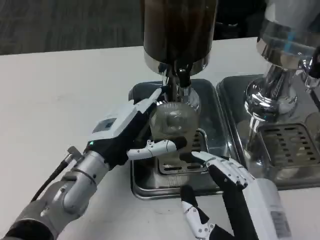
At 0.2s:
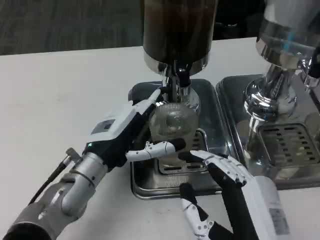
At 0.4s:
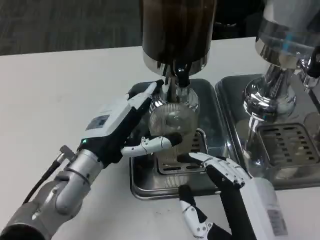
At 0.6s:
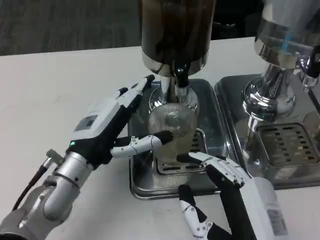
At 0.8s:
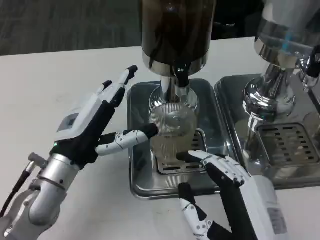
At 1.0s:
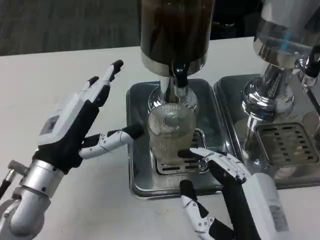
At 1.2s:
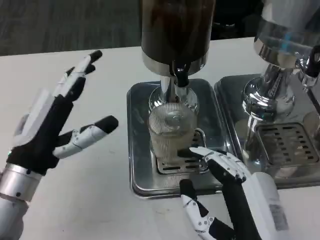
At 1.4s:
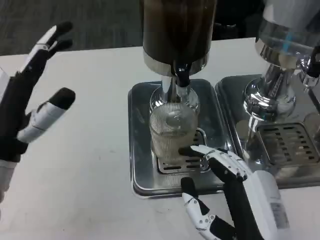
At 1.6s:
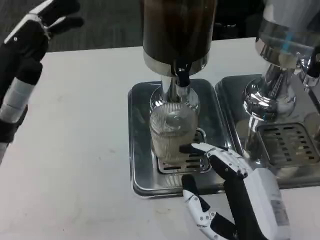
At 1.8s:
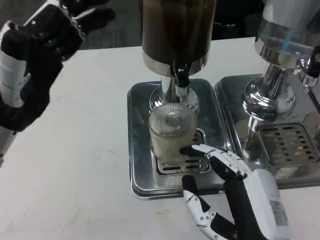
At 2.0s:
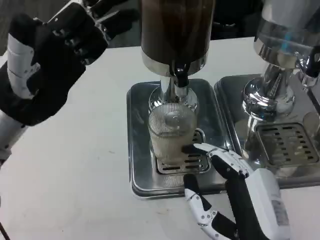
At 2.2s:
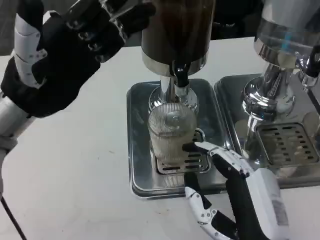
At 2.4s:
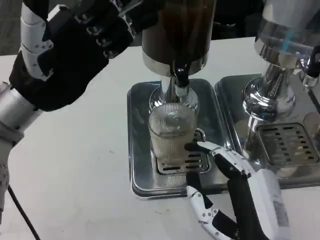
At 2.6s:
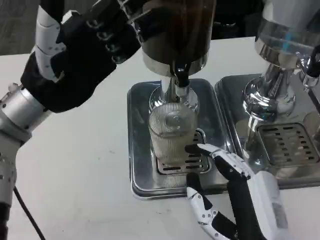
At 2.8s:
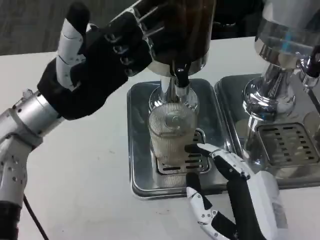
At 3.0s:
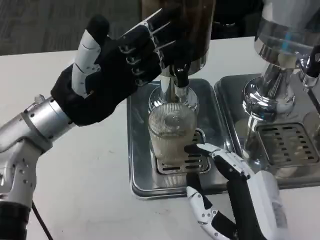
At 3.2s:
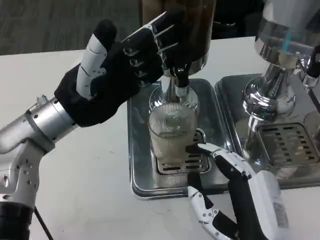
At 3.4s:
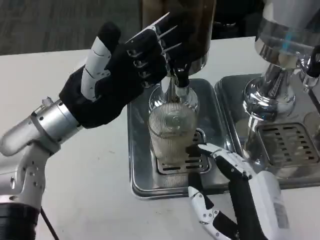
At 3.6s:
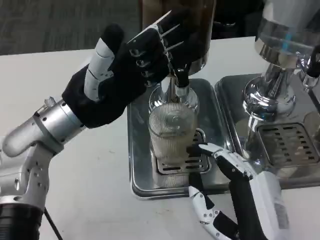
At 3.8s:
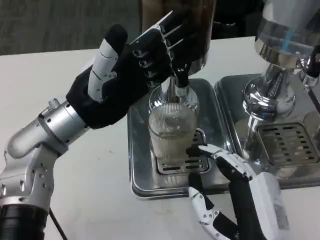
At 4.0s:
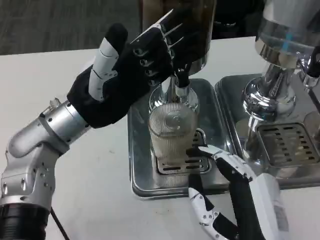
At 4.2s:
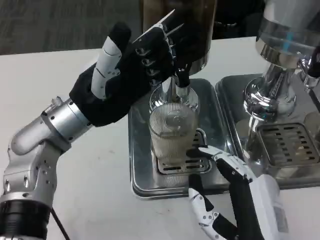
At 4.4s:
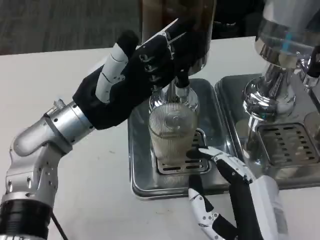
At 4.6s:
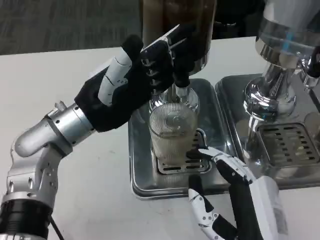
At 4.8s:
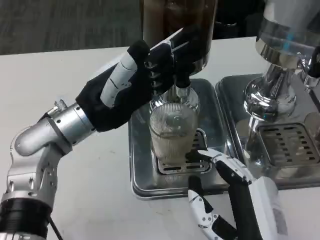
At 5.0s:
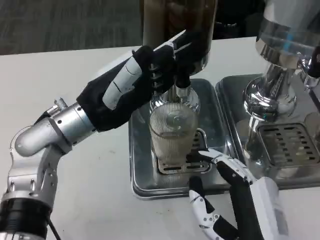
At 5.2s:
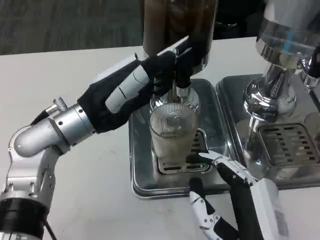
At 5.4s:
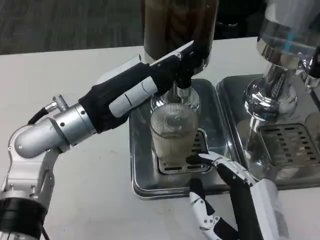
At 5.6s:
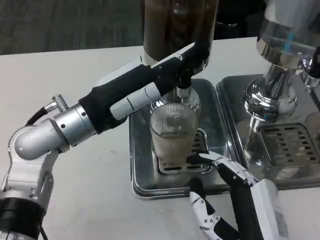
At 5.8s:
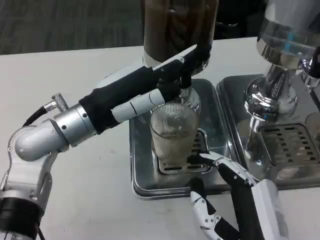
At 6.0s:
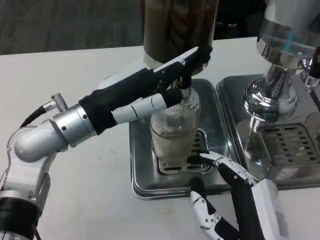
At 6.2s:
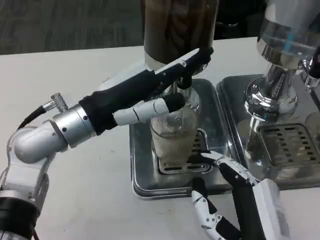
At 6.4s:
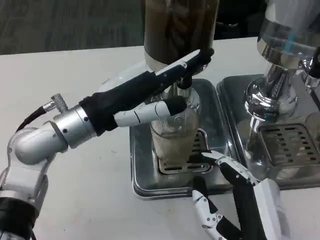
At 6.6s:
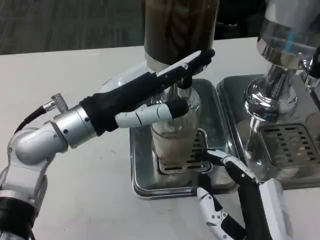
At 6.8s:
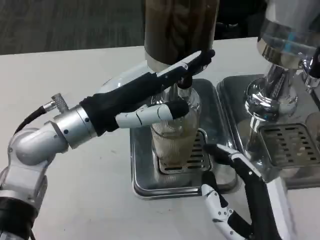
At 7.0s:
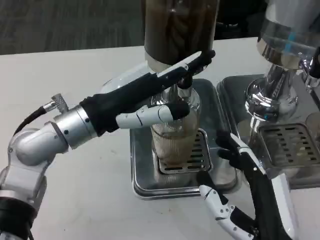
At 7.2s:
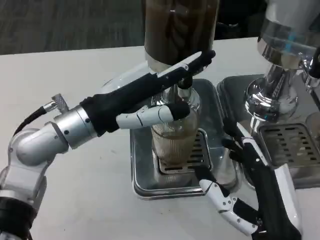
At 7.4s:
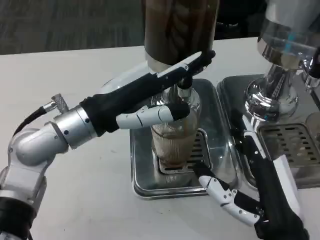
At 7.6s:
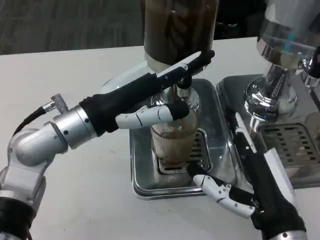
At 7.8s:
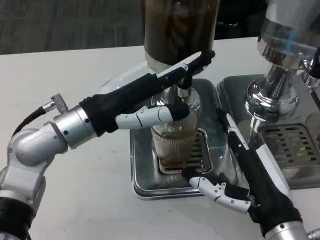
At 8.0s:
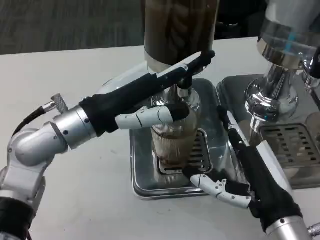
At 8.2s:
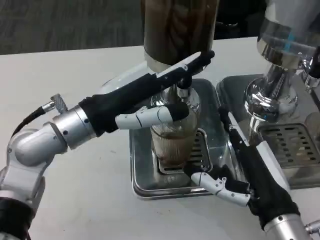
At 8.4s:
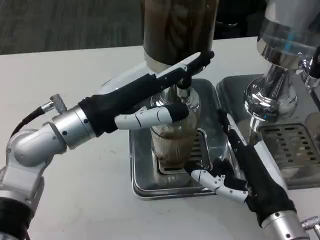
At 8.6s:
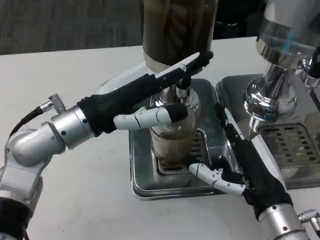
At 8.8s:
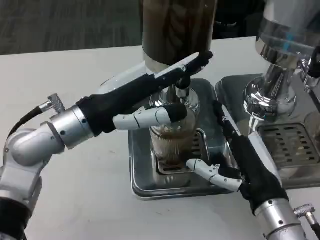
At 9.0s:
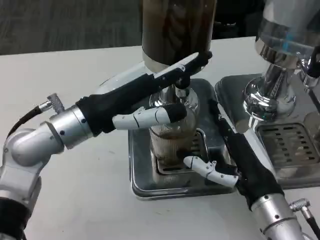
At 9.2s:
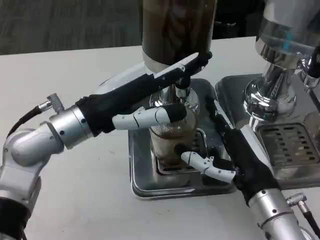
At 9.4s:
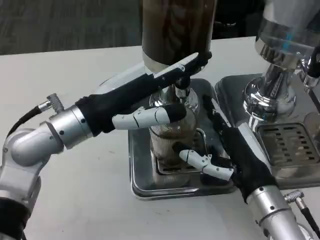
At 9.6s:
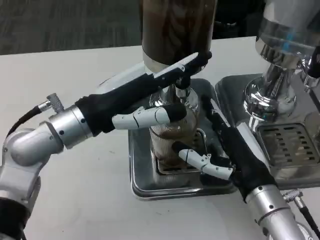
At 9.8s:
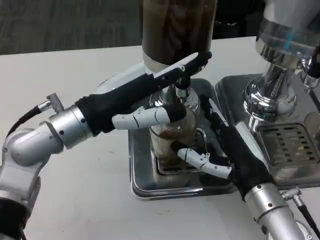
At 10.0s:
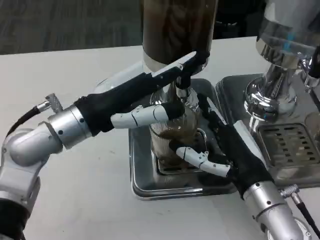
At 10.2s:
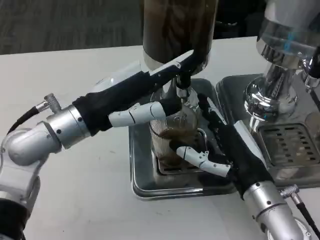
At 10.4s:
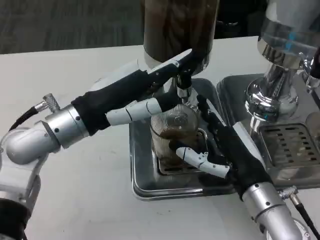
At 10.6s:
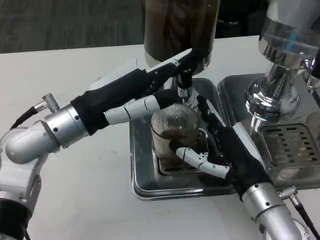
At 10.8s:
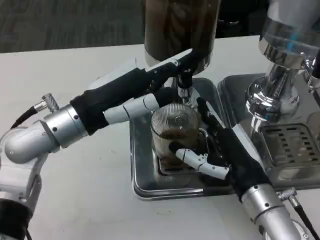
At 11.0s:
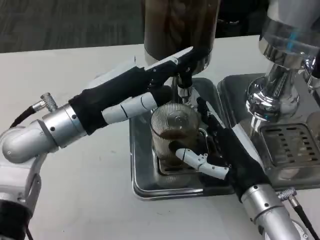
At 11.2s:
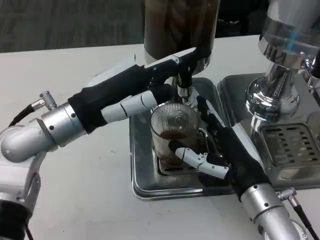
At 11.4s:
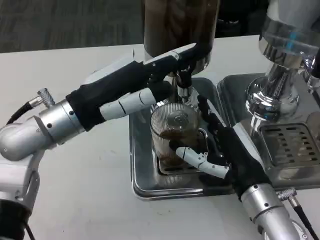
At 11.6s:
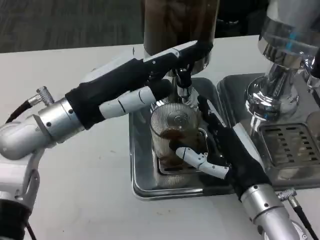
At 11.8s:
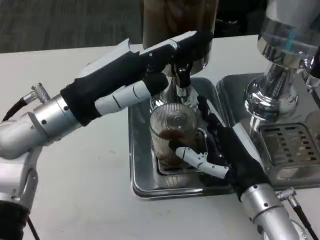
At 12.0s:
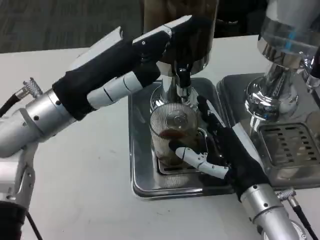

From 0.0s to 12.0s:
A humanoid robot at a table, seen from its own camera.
Task of the whole recording: Grasp the cup under the faucet to collect the drink, then remove the cup.
From 0.0s to 1.6s: The left hand goes about 15 cm upward and to the left.
From 1.6s to 3.0s: The left hand travels forward by roughly 5 cm.
From 6.0s to 7.6s: The right hand changes place by roughly 5 cm.
From 7.6s to 9.0s: The right hand travels forward by some 5 cm.

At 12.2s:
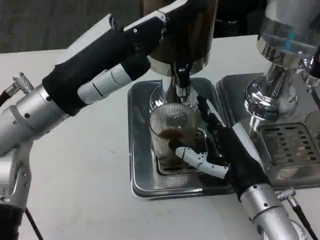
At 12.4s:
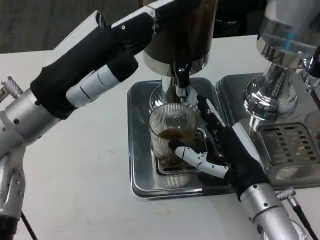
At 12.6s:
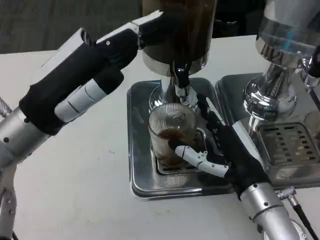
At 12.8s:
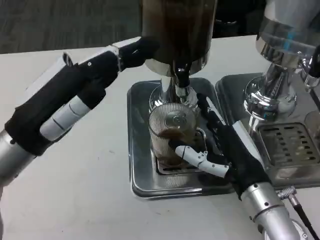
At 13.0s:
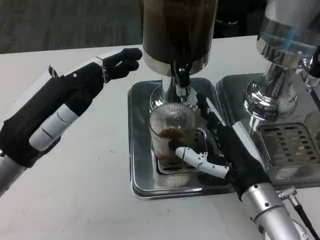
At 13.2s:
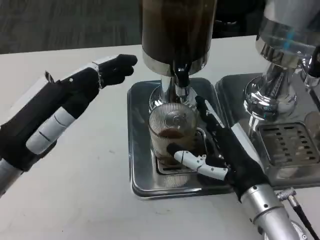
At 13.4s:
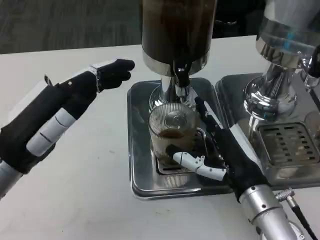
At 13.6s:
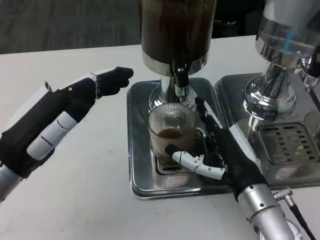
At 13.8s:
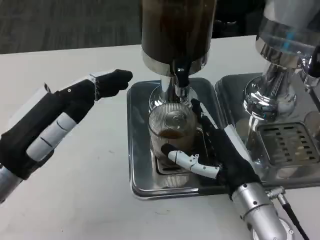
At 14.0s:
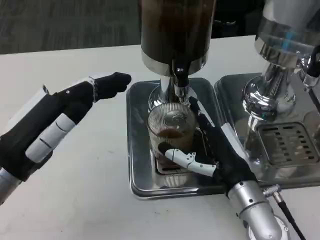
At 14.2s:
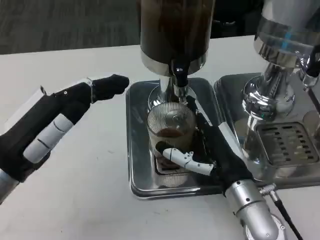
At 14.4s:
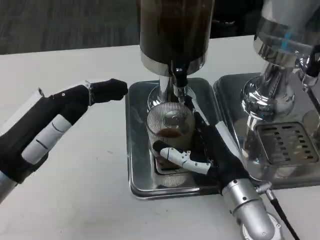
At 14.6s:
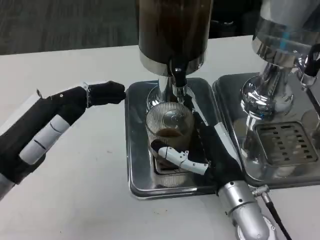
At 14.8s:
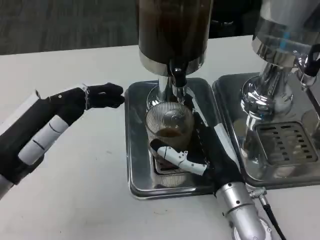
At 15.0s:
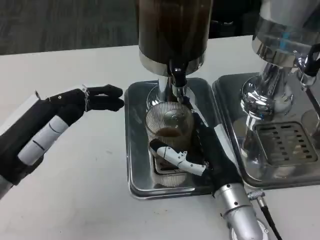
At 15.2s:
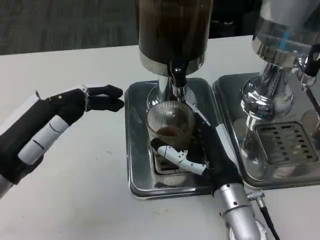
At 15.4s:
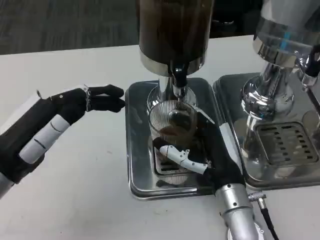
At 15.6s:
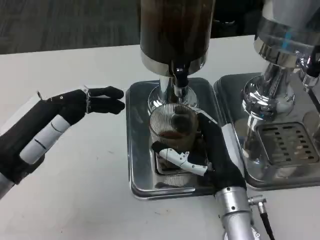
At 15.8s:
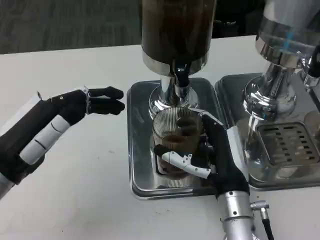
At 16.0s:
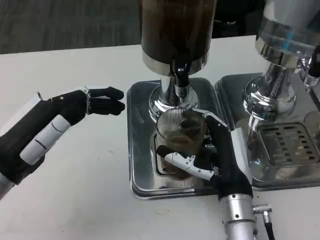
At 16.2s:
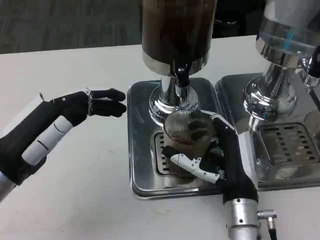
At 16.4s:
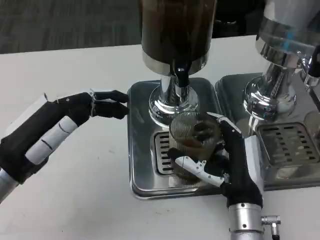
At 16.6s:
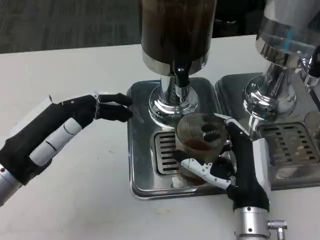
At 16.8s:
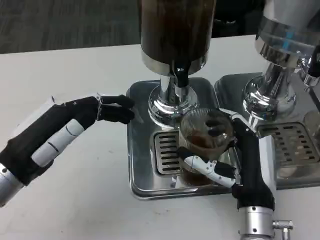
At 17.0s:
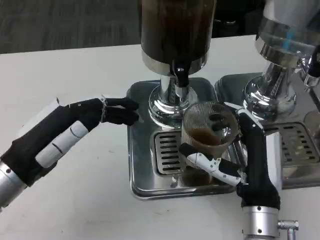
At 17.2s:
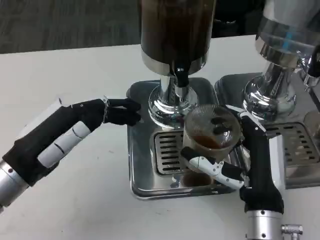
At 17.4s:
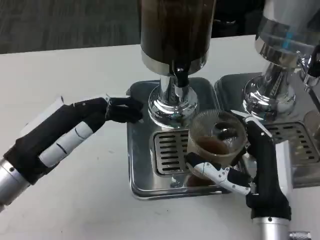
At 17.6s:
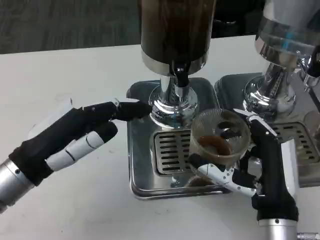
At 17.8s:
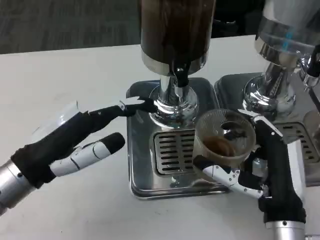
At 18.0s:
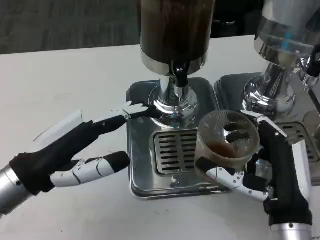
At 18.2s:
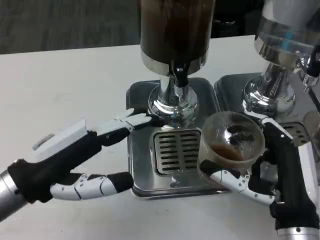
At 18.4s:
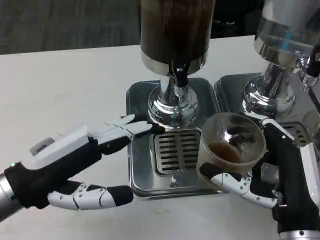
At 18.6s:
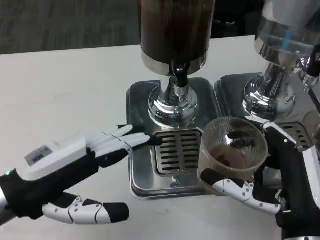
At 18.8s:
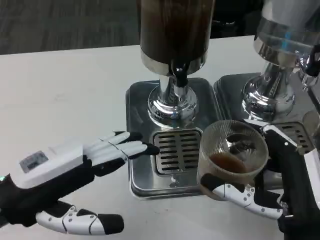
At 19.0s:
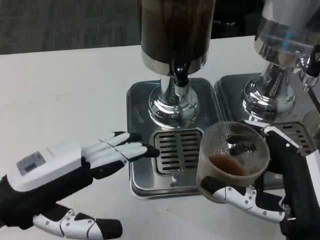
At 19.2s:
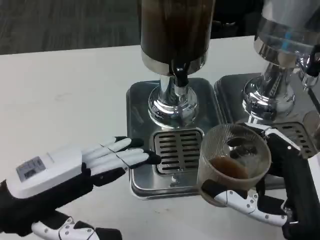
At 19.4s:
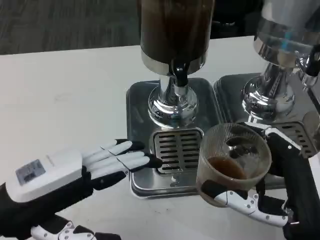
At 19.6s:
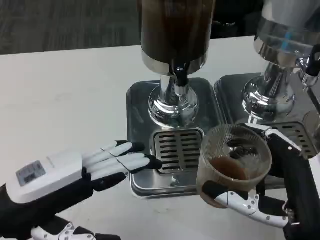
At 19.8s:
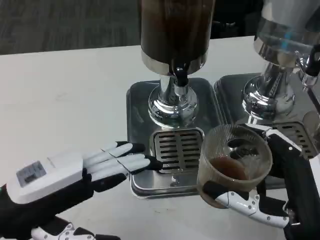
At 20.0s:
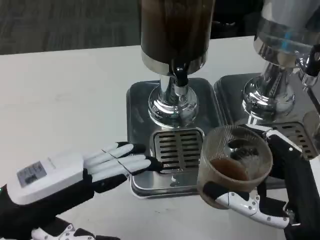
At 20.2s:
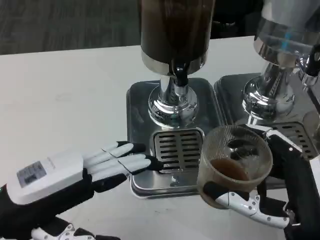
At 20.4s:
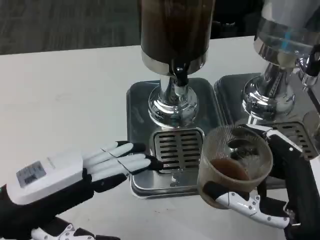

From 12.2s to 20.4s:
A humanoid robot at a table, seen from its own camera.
Task of the whole recording: Grasp the cup under the faucet to collect the drink, then remove the cup.
From 12.2s to 13.8s: The left hand moves backward, downward and to the left, about 10 cm.
From 13.8s to 15.4s: The hands stay close to where they were, moving slightly.
From 15.4s to 17.2s: The right hand shifts by some 5 cm.
From 17.2s to 18.8s: The right hand travels backward by about 5 cm.
From 18.8s to 20.4s: The hands stay close to where they were, moving slightly.

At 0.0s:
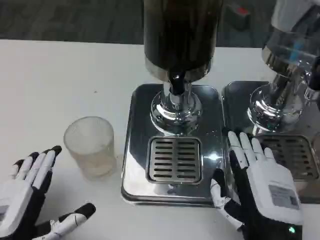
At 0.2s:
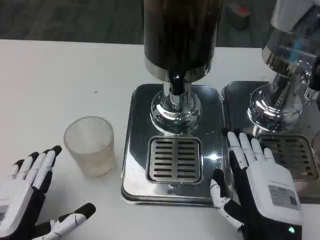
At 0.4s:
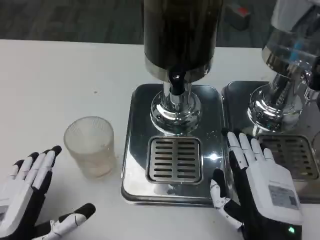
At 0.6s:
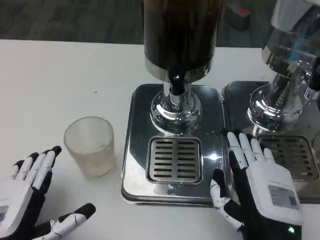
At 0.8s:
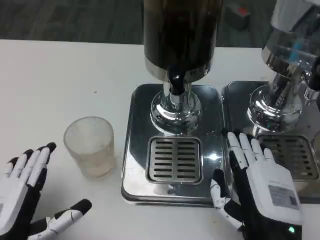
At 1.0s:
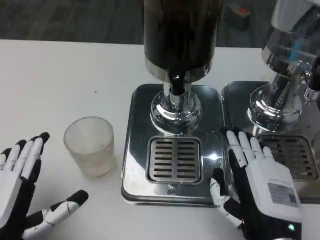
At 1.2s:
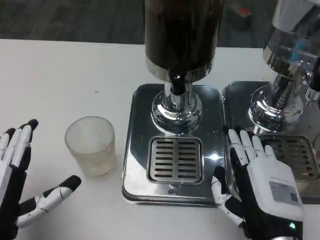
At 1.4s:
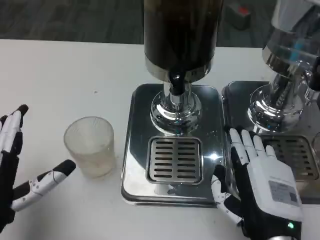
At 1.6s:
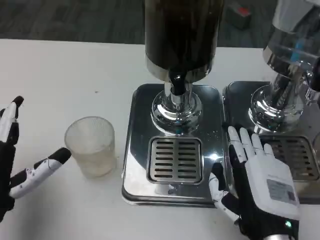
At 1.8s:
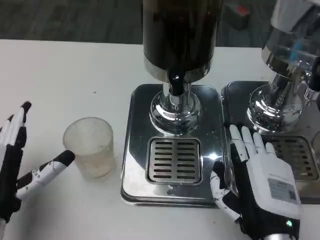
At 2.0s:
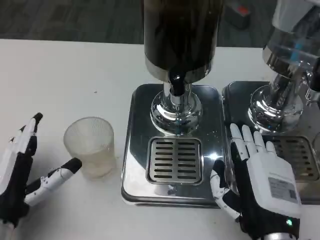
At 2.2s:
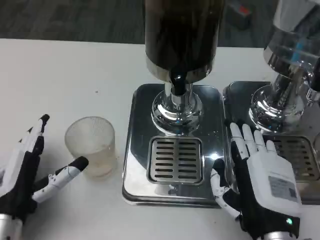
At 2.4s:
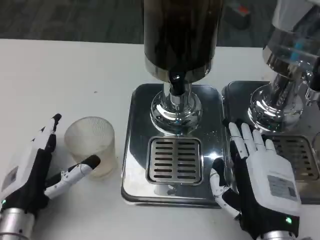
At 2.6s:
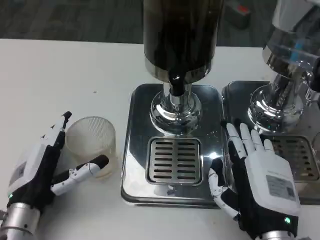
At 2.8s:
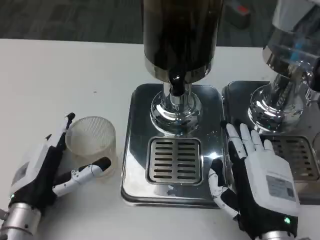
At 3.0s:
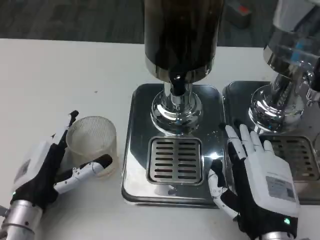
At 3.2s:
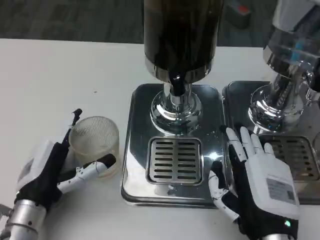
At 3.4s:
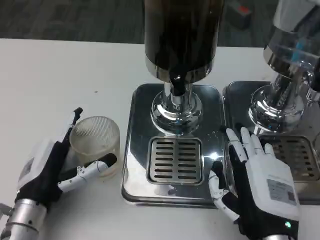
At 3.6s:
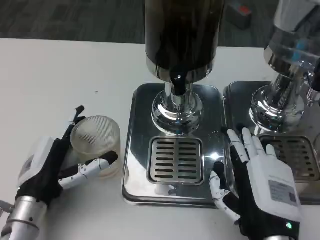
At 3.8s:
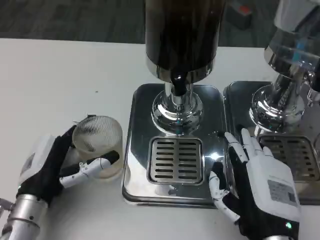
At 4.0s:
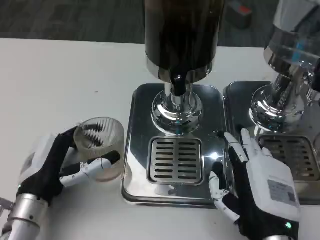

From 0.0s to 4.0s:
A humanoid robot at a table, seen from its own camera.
Task of the whole recording: Grasp the cup under the faucet to collect the drink, then remove the cup.
From 0.0s to 1.4s: The hands make only small movements.
From 1.4s to 2.6s: The left hand heads forward, covering some 5 cm.
From 2.6s to 4.0s: The hands make only small movements.
